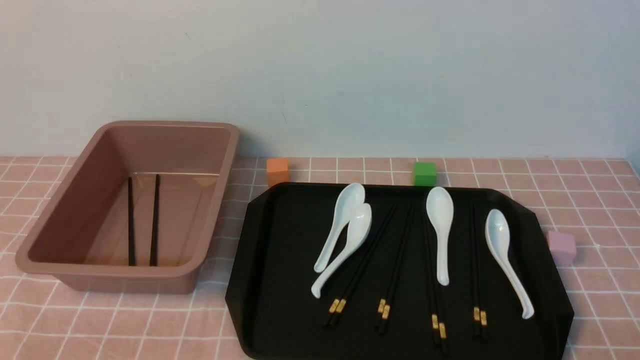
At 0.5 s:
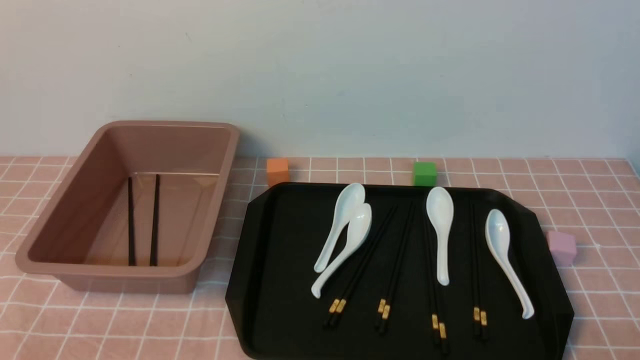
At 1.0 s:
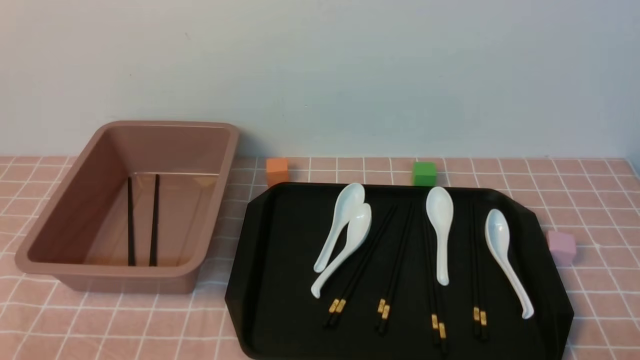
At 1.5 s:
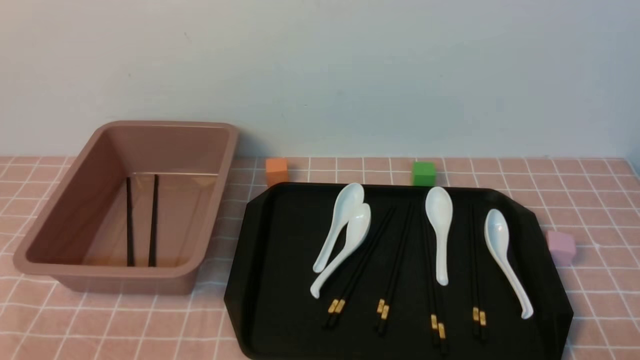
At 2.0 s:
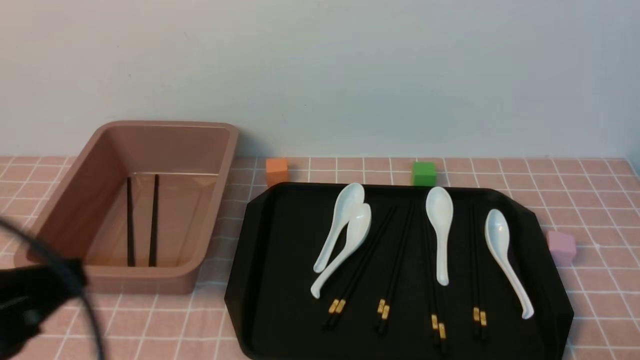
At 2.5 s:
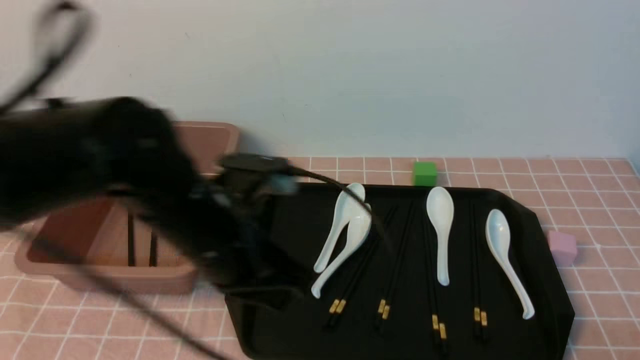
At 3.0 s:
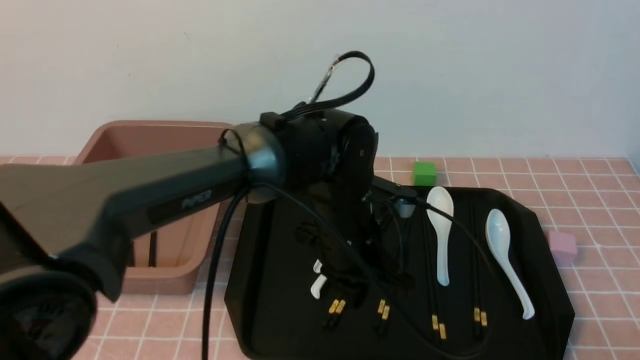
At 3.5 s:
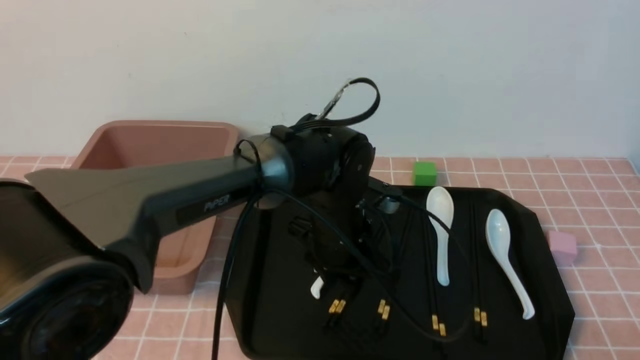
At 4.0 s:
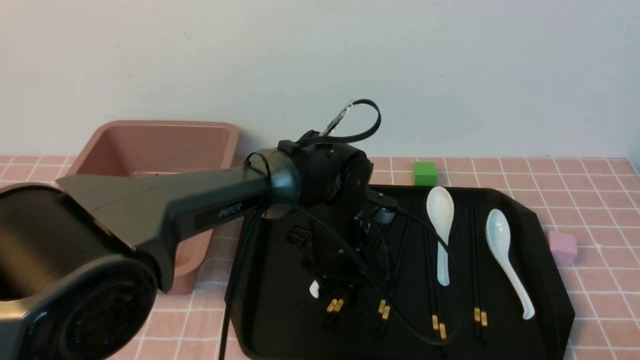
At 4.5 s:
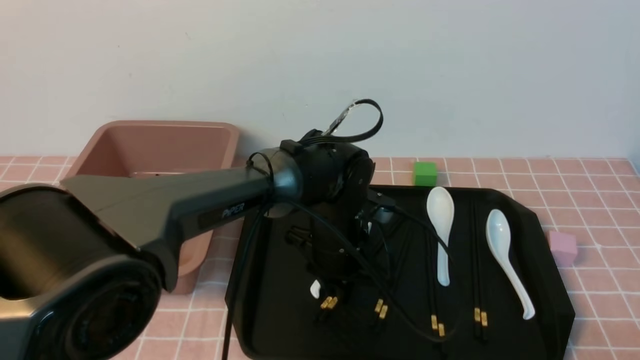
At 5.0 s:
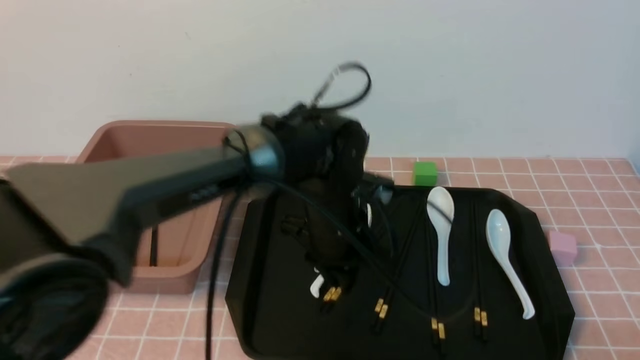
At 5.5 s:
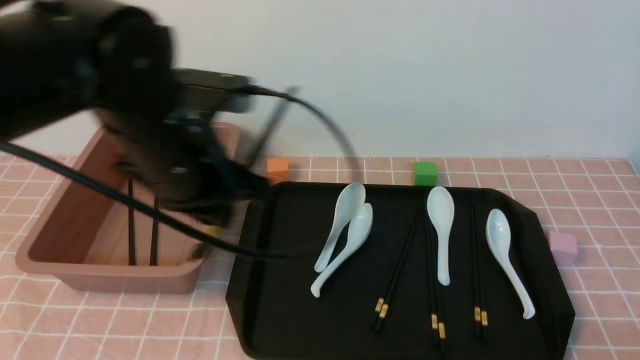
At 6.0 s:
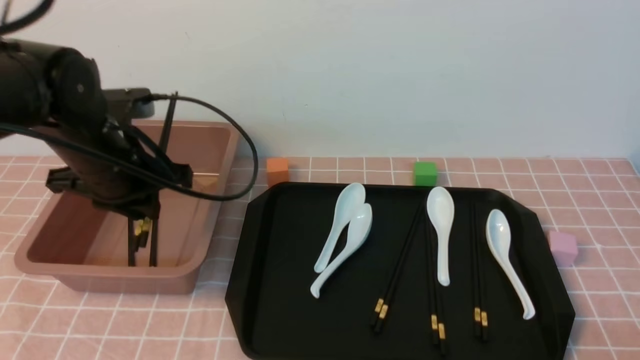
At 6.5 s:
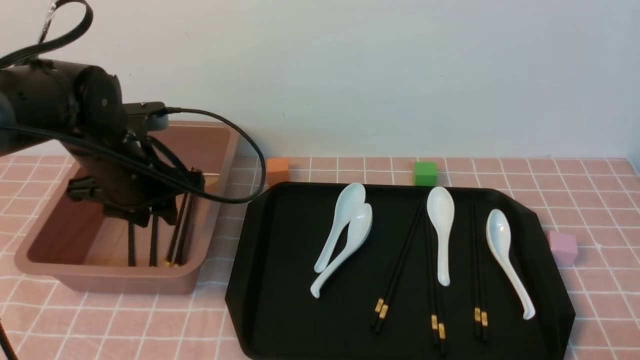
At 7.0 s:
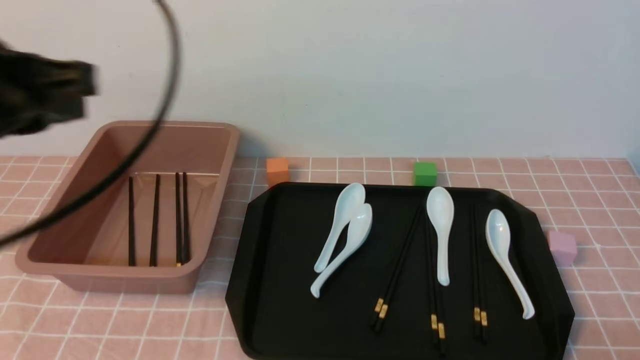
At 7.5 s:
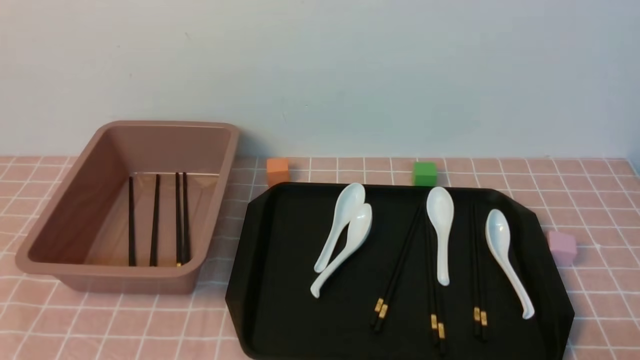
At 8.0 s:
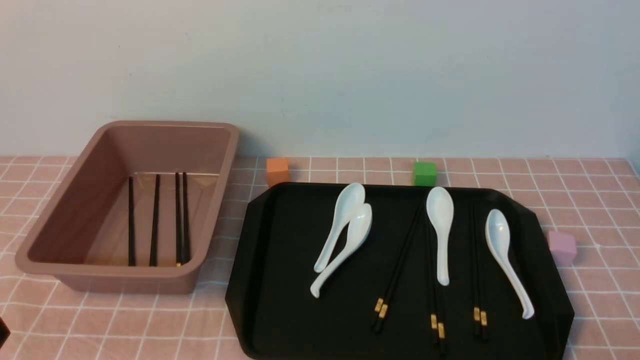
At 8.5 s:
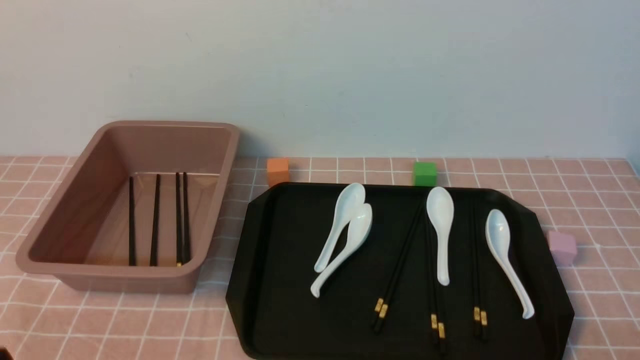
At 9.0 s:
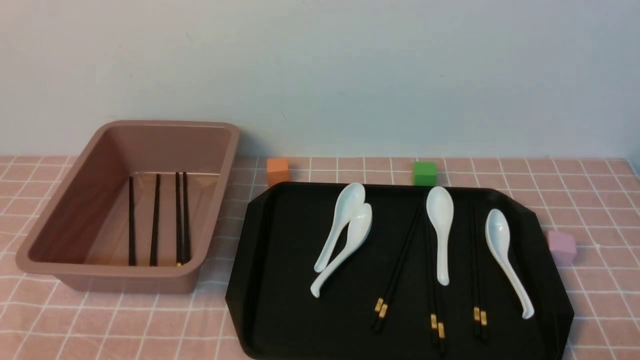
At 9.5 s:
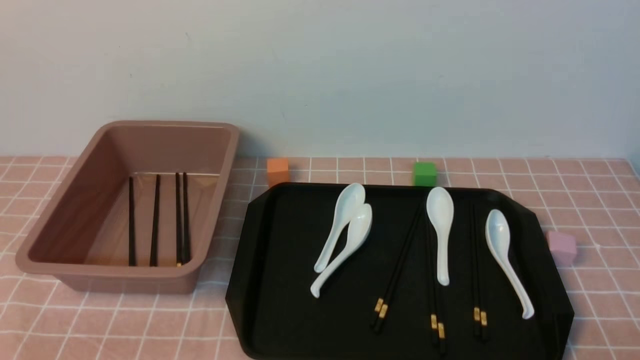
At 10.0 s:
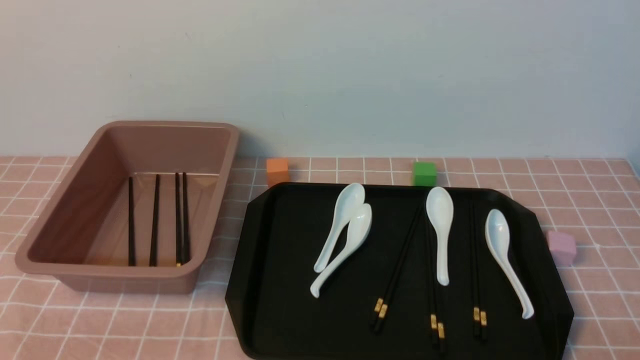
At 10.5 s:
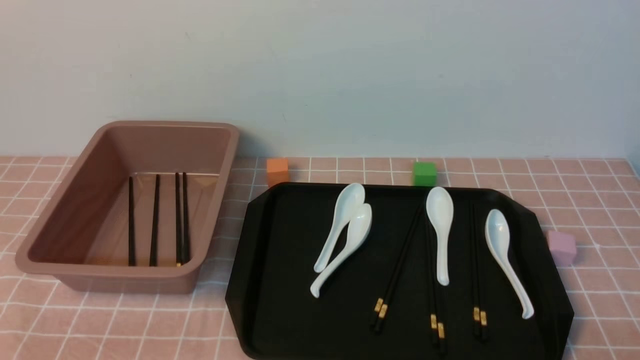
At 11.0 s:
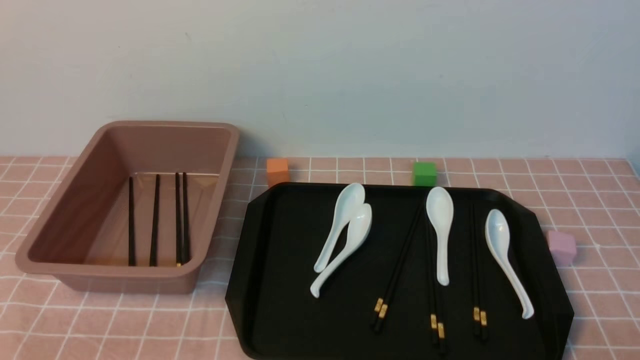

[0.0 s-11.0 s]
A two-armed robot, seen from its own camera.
Step, 0.0 to 5.0 s: use the left arm to grab a pair of chopsticks.
Step, 5.5 to 6.5 s: use the left arm to put the chopsticks into the lunch box.
0.0 to 2.0 s: The left gripper heads upward, covering some 15 cm.
2.0 to 3.5 s: The left gripper travels to the right, forward and downward by roughly 35 cm, and opens its fingers.
3.5 to 5.5 s: The left gripper shifts approximately 20 cm to the left and upward, and closes up.
5.5 to 7.5 s: The left gripper moves backward and to the left, approximately 30 cm, and closes.
9.0 to 11.0 s: Neither gripper changes place.
